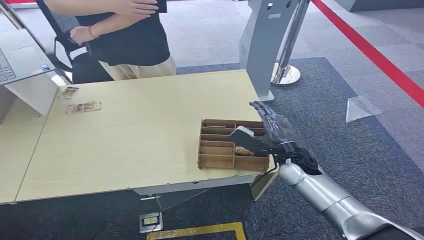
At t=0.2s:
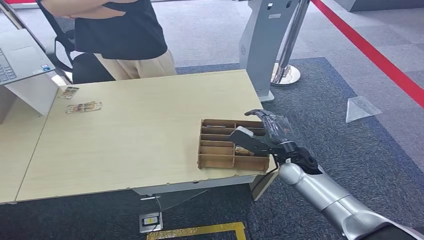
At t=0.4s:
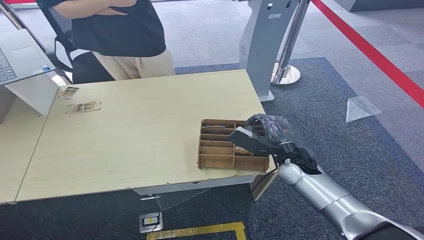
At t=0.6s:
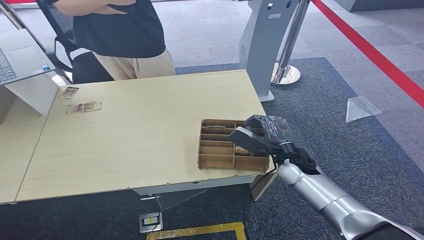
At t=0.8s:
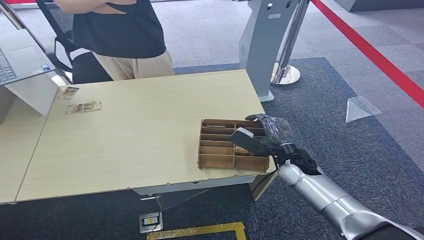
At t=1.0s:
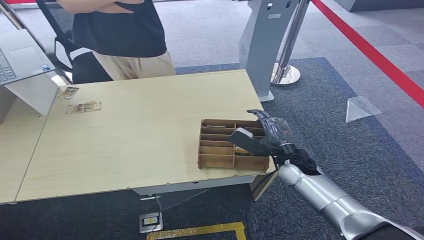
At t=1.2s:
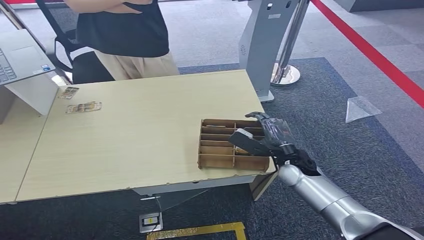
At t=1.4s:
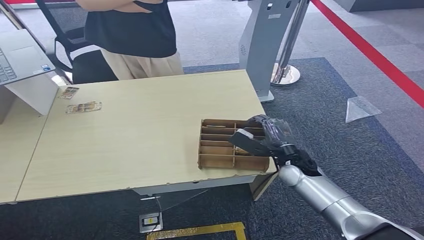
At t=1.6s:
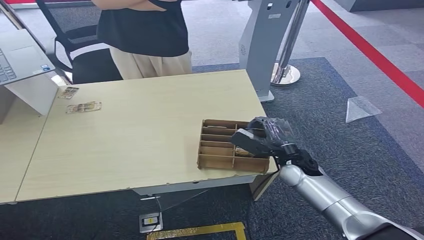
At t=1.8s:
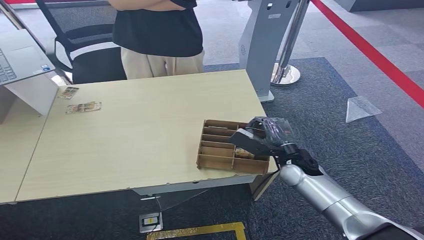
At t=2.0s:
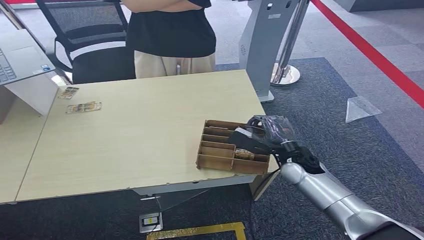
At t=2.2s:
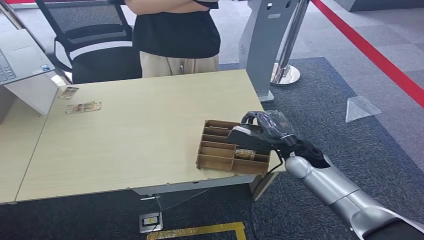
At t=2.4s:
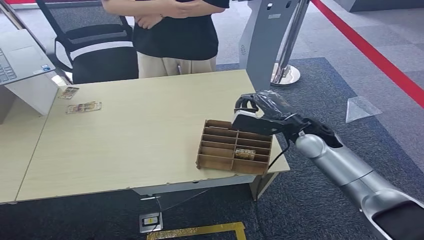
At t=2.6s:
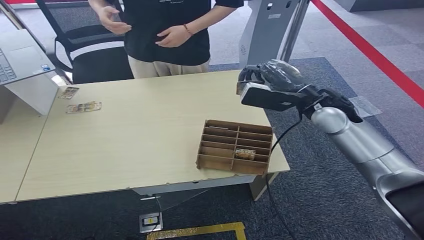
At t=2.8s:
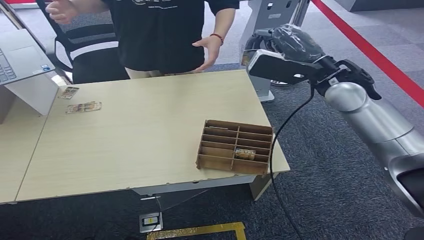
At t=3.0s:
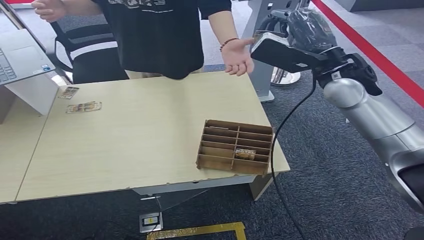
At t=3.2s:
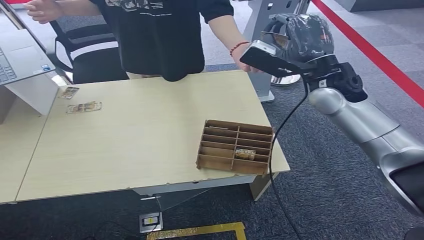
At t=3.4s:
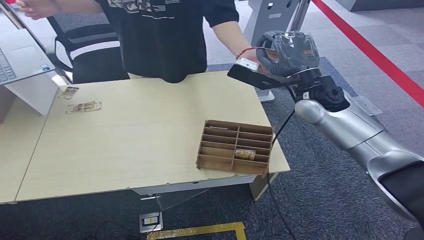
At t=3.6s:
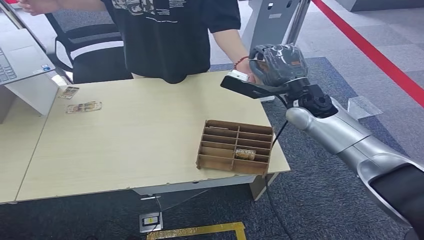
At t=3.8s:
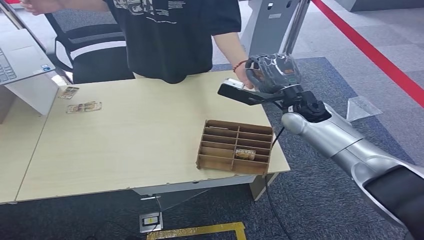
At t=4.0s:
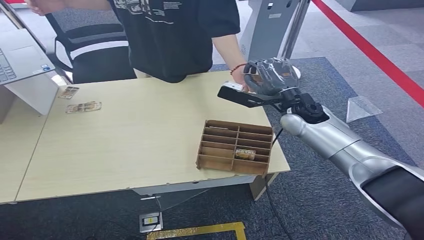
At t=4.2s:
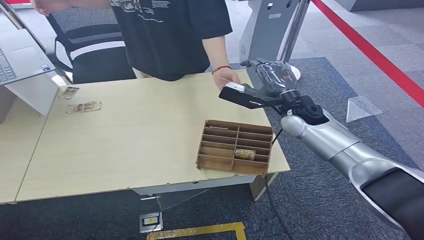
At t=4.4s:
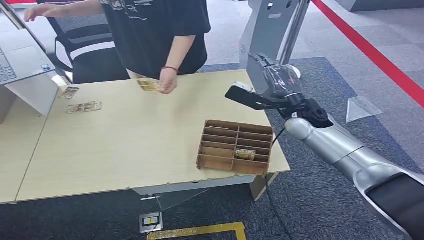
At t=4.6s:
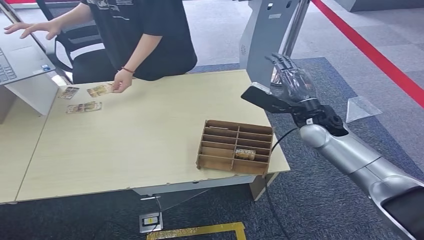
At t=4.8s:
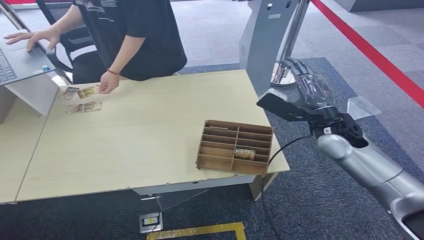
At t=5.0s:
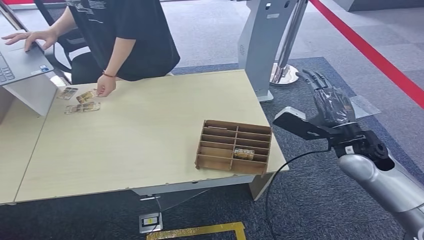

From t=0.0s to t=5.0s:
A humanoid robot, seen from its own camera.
Step, from t=0.0s to t=2.4s: Pick up the room card from the card holder.
Step, from t=2.6s to t=5.0s: Hand the room card to the target.

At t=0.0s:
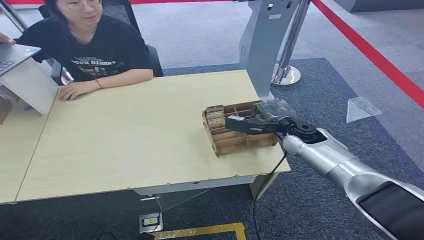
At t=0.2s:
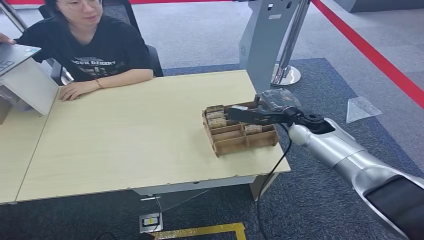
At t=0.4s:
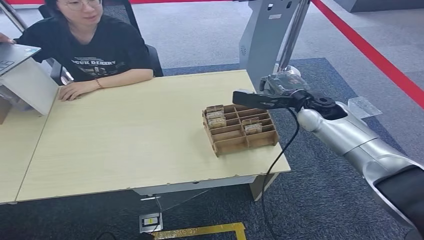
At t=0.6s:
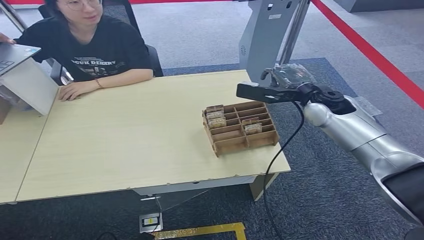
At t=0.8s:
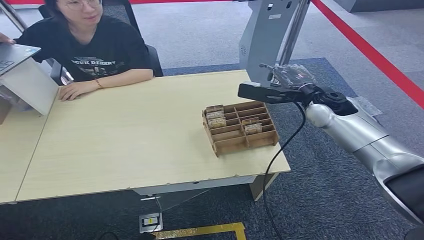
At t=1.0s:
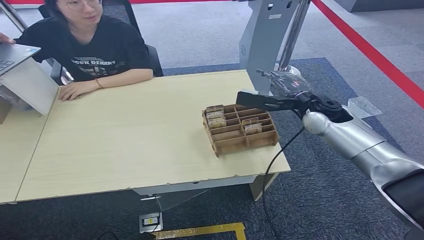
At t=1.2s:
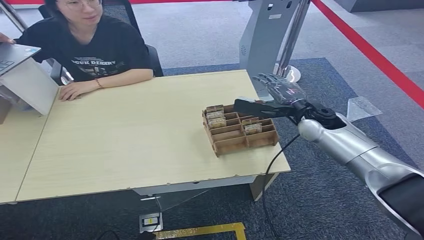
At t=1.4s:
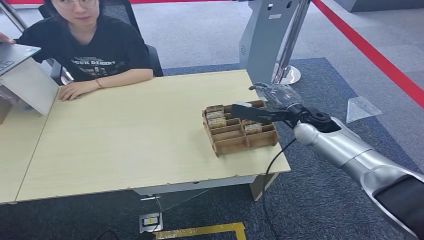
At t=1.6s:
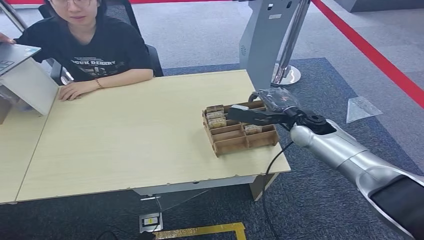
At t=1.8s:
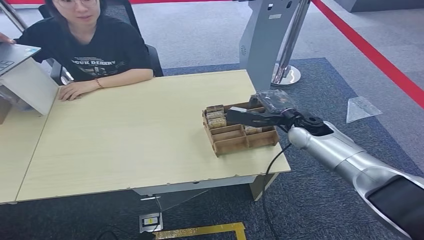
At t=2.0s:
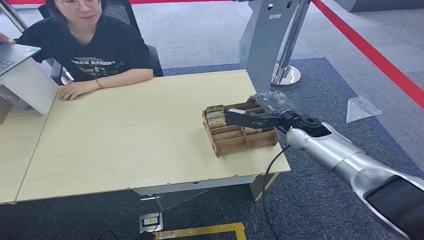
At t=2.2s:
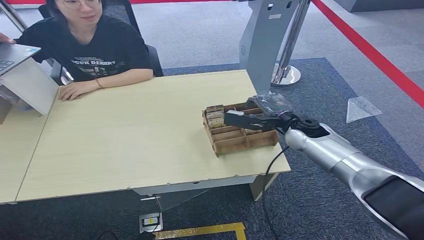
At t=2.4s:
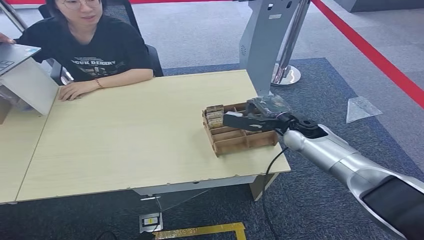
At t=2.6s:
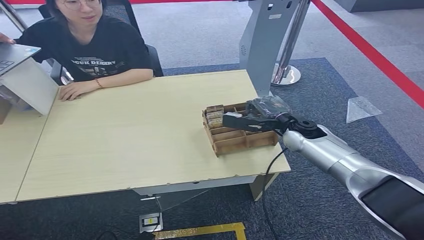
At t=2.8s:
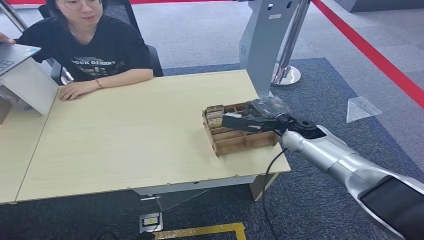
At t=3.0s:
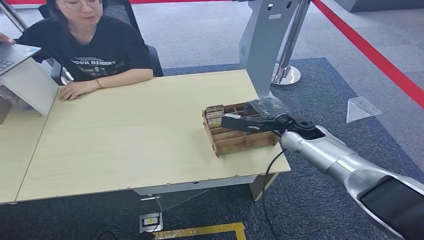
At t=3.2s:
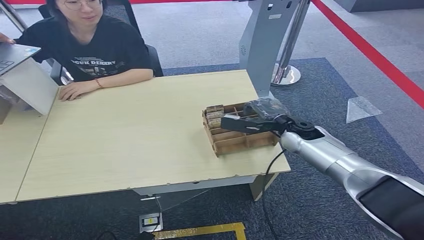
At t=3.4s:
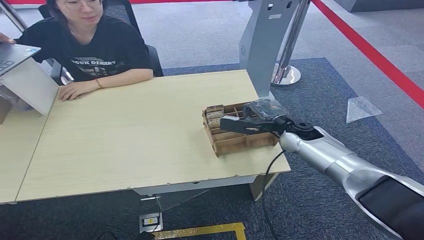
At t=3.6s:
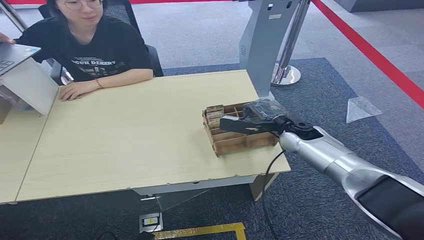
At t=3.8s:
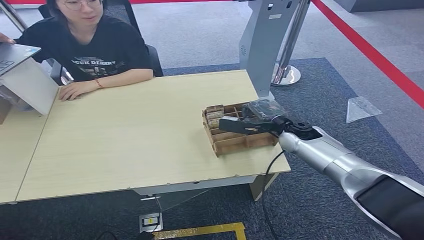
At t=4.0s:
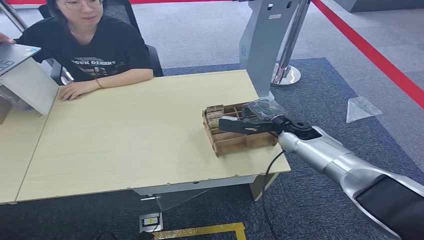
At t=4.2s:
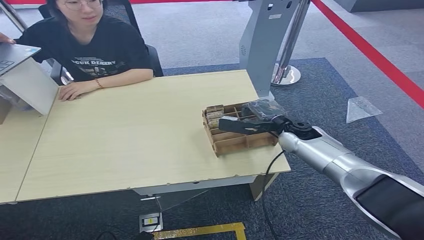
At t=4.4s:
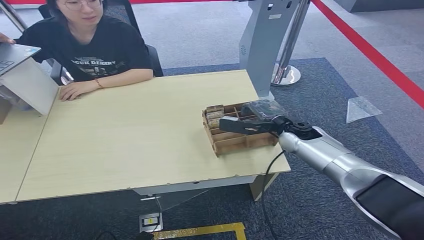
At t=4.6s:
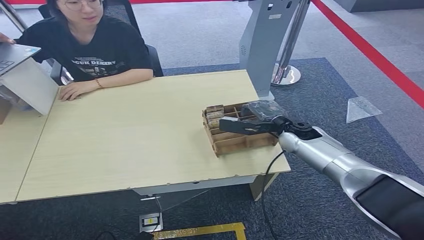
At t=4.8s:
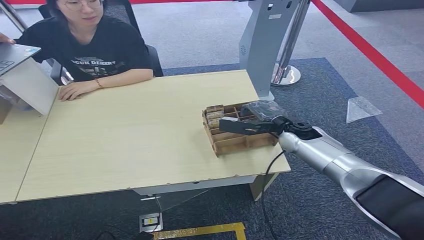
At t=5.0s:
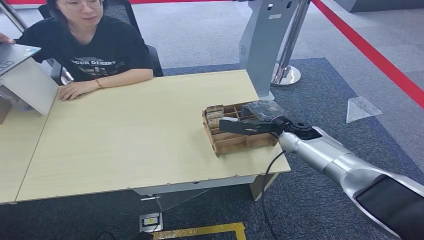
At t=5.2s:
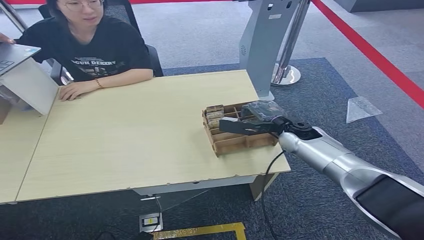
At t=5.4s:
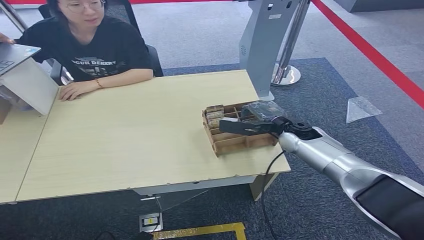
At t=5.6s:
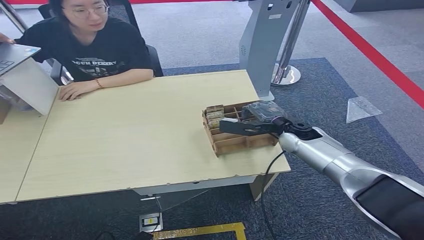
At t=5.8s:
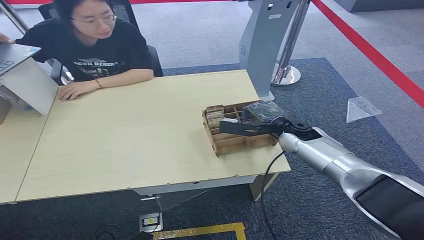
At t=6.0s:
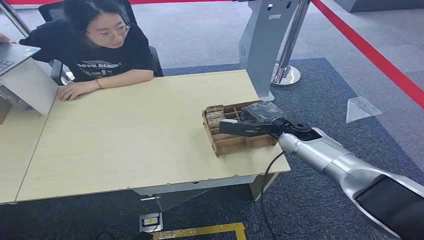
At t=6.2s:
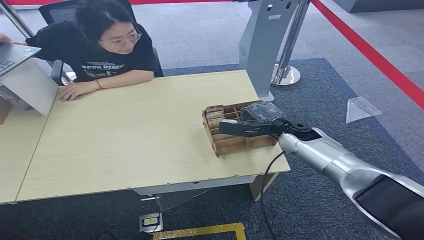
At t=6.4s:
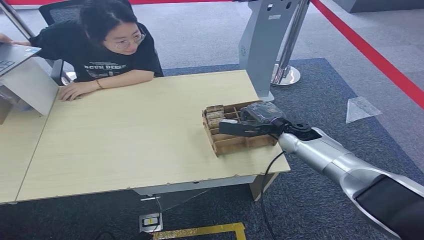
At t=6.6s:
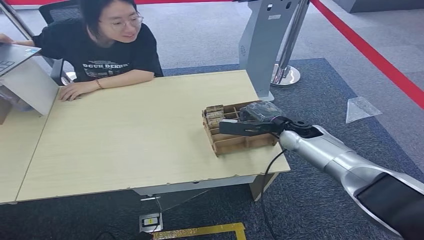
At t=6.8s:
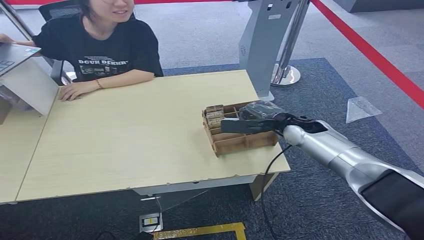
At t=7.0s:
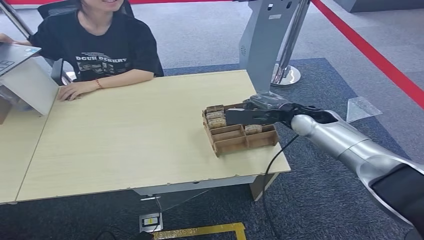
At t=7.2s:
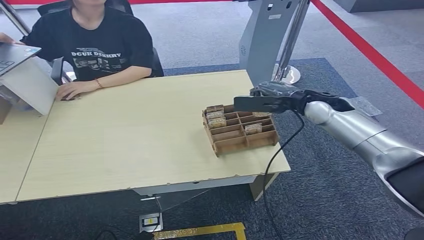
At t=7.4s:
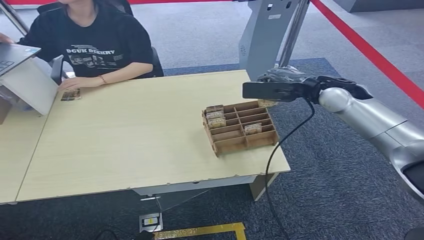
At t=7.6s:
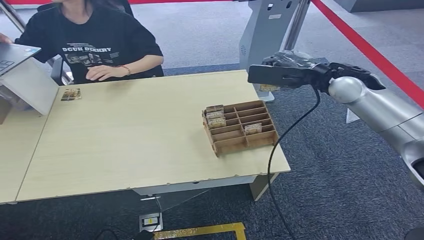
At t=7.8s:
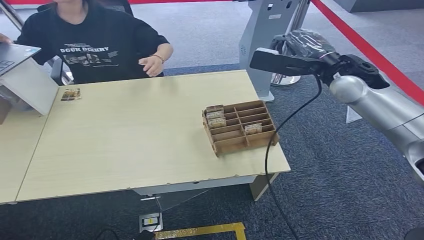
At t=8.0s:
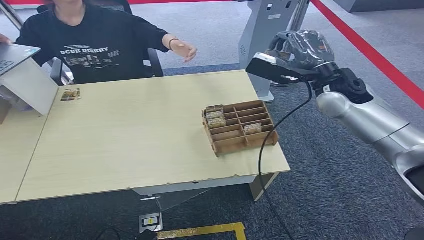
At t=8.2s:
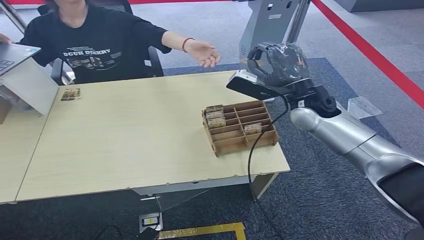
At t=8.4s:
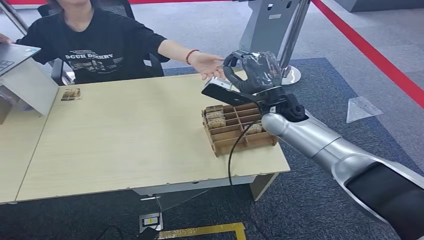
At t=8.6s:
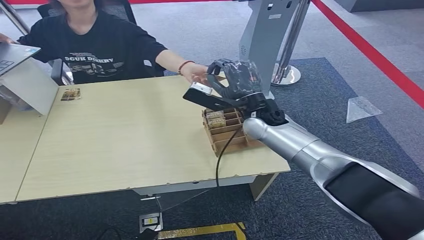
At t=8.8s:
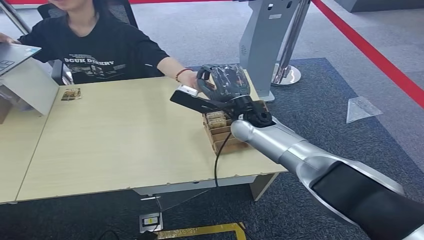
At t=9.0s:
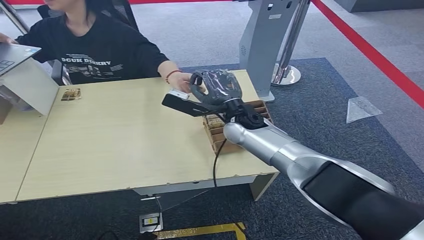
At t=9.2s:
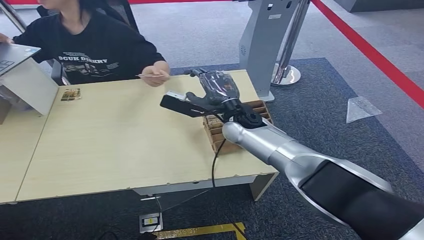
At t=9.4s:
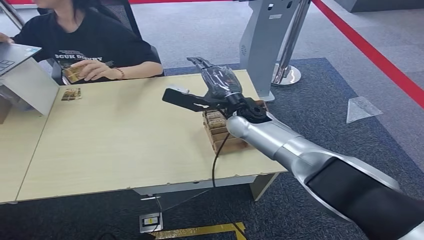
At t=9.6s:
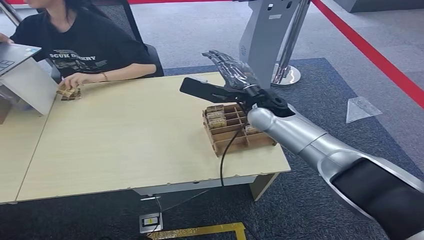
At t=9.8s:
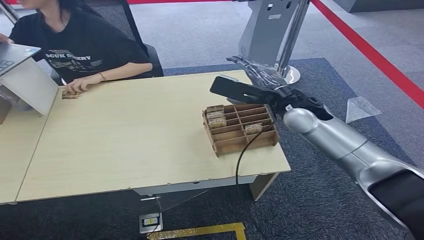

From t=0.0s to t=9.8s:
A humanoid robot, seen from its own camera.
Step, from t=0.0s to t=8.0s: Pick up the room card from the card holder.
Step, from t=8.2s to t=9.8s: Hand the room card to the target.
From t=1.4s to t=2.8s: The hands move only a little.
From t=2.8s to t=5.6s: Both hands stay about where they are.
From t=5.6s to t=7.0s: The right hand is displaced upward by approximately 5 cm.
From t=7.0s to t=8.4s: The right hand moves to the left, some 5 cm, and travels upward and back again, approximately 15 cm each way.
From t=8.4s to t=9.8s: The right hand reaches some 10 cm to the left, then returns.
